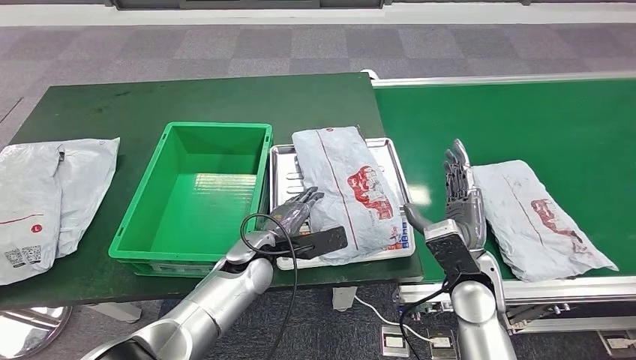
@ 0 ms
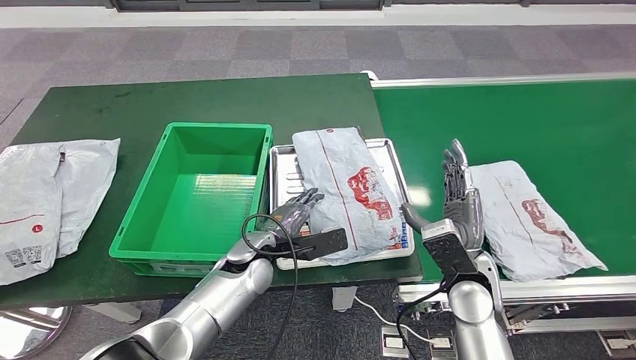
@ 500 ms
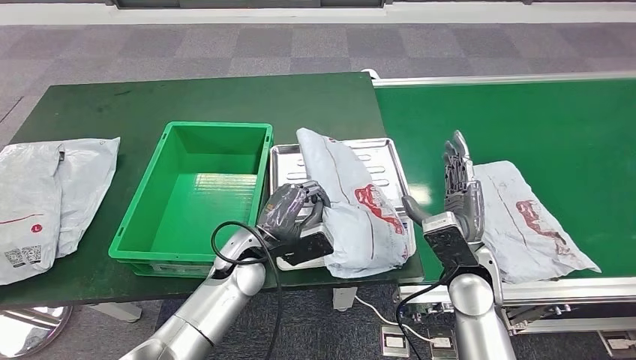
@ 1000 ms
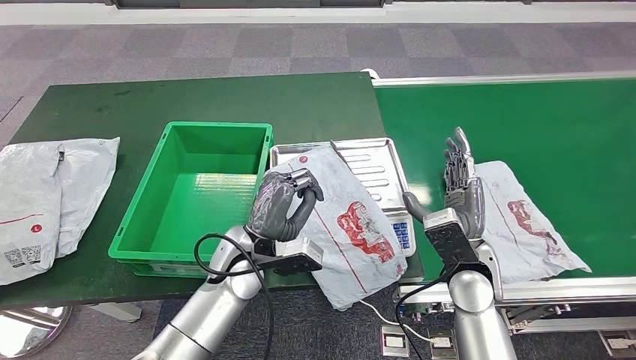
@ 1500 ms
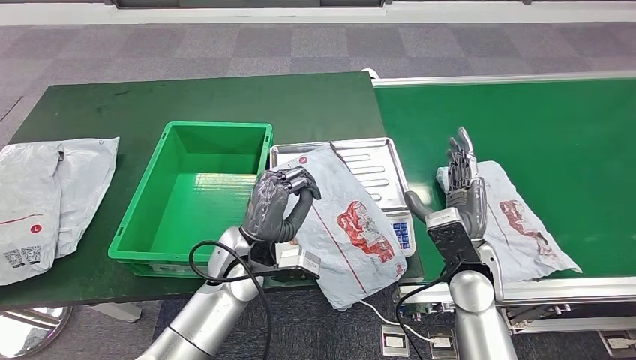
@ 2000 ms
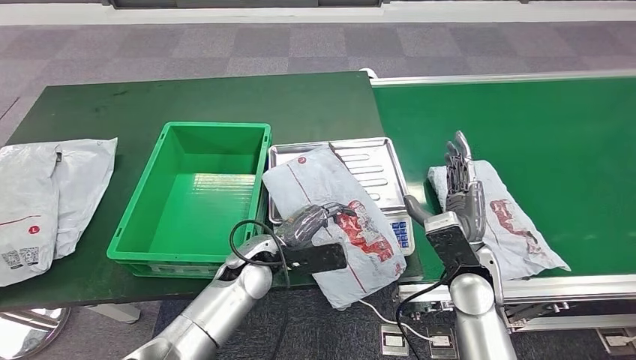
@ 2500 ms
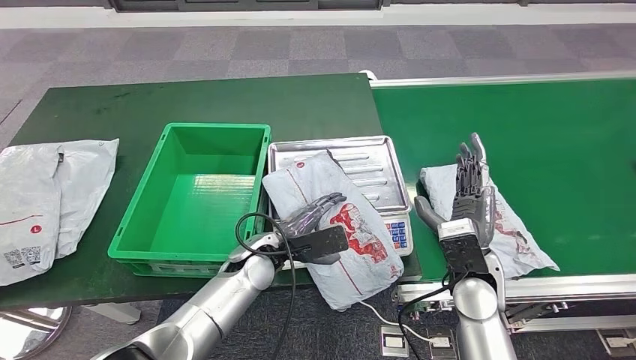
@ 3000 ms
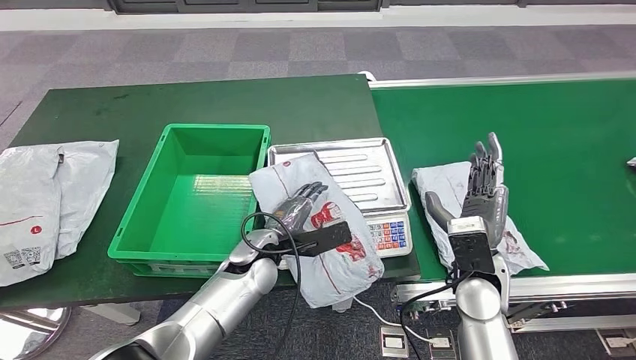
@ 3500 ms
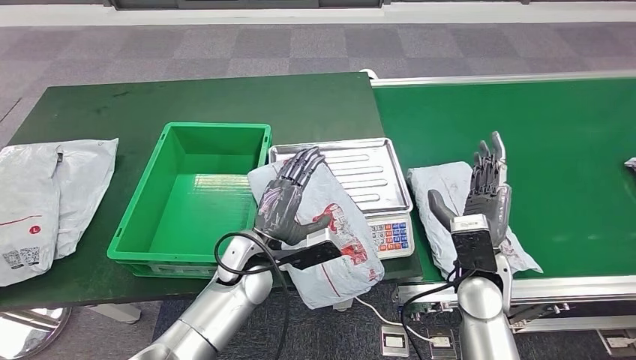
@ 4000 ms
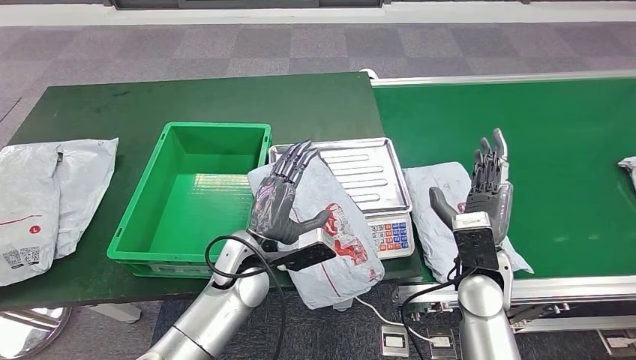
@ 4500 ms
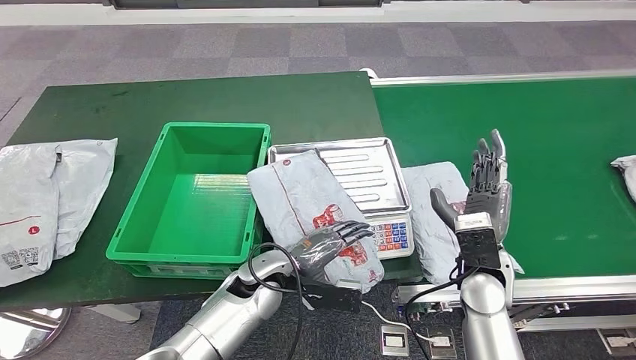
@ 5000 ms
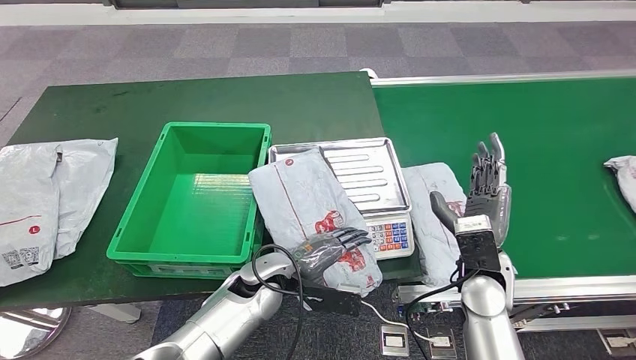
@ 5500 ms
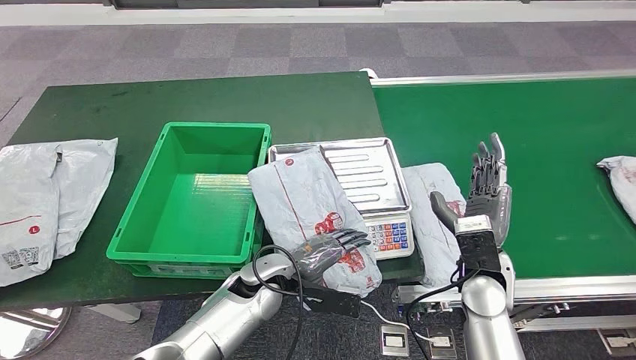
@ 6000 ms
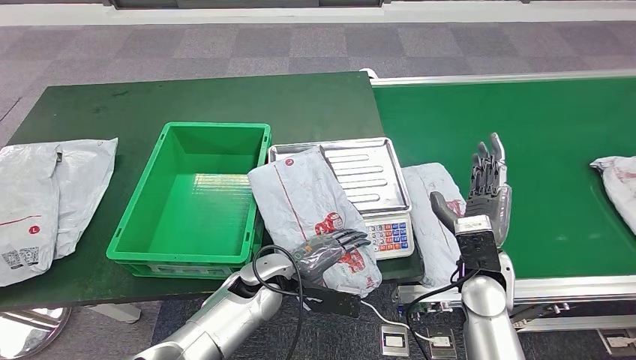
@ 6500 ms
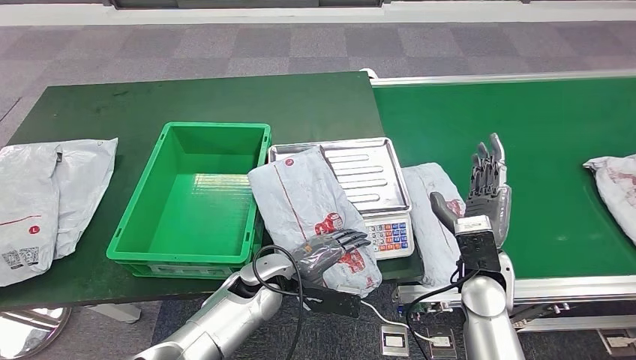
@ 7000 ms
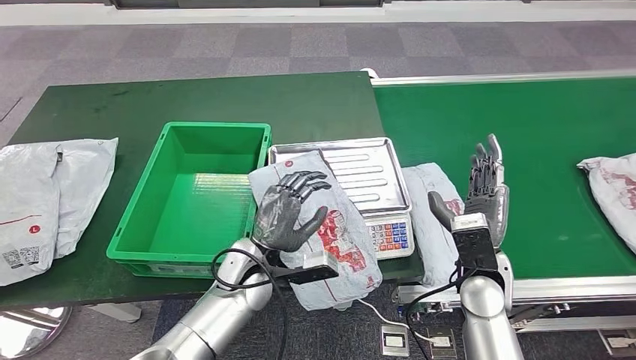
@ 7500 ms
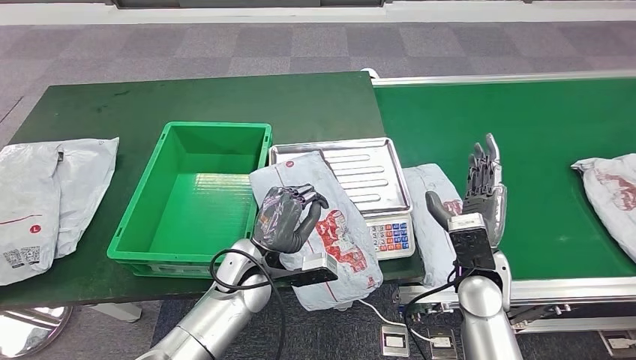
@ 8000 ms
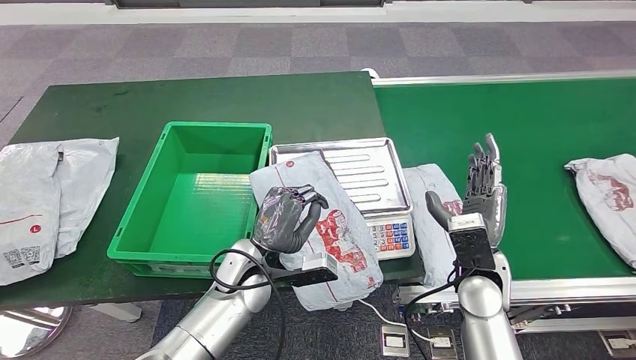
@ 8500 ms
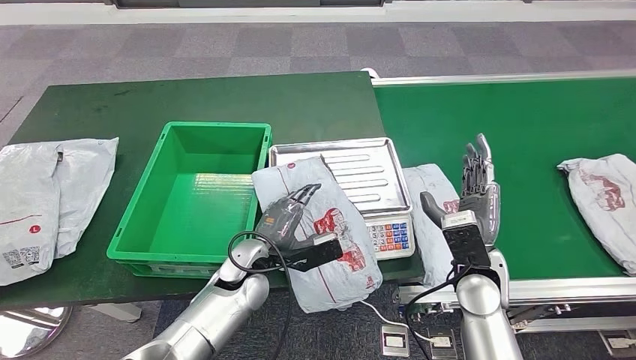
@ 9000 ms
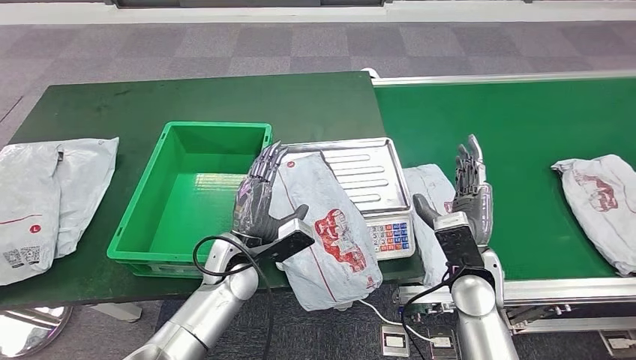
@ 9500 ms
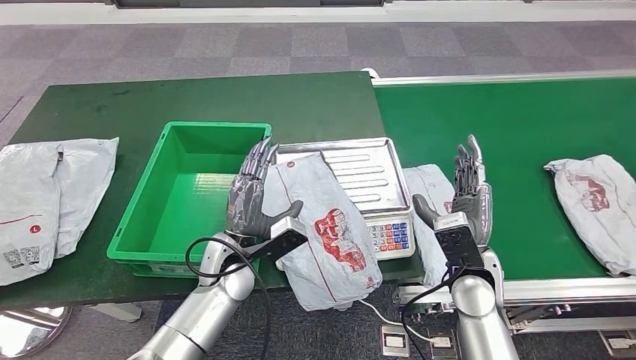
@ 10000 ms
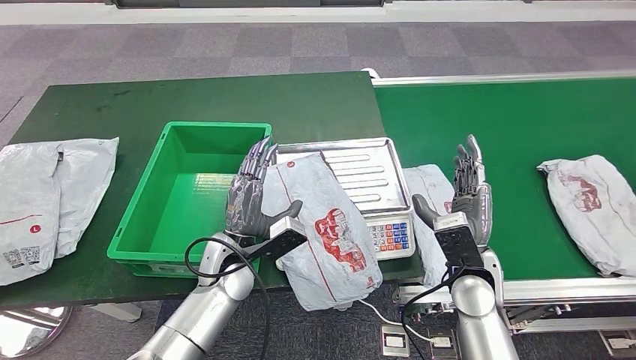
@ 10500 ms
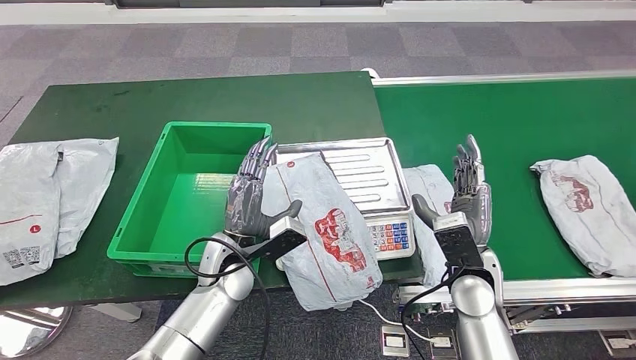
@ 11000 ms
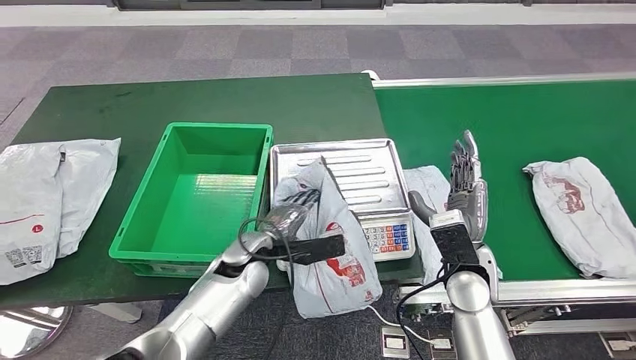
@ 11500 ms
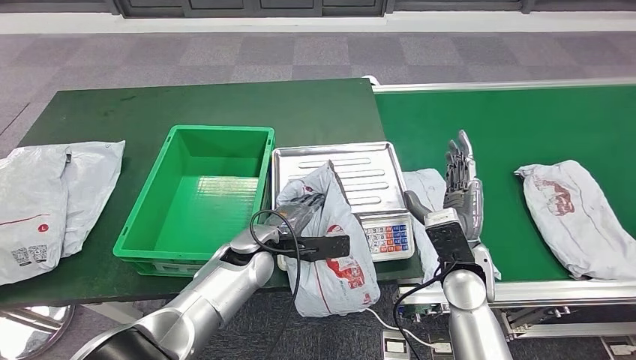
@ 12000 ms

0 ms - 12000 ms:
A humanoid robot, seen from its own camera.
0 ms - 2000 ms: The left hand moves upward, some 5 cm.

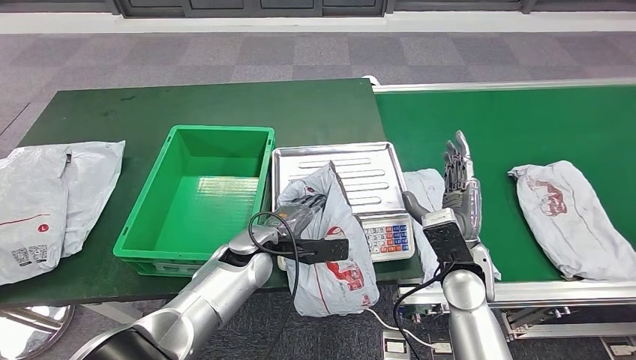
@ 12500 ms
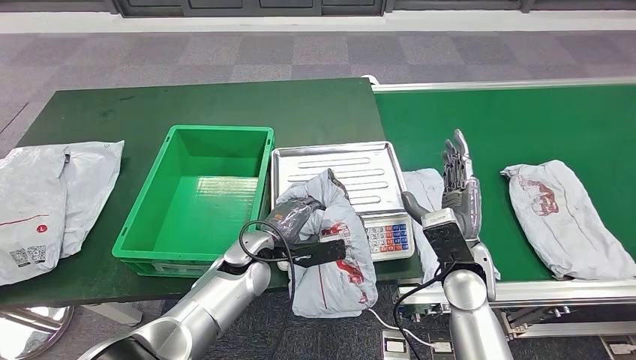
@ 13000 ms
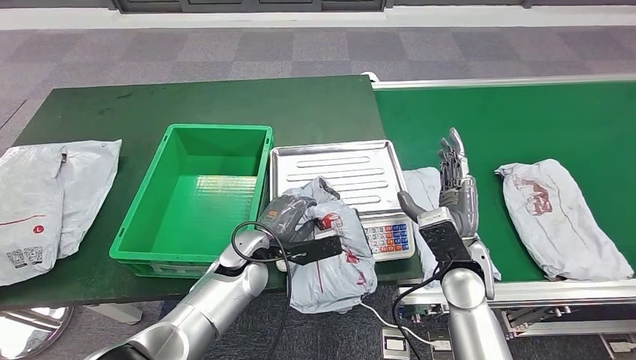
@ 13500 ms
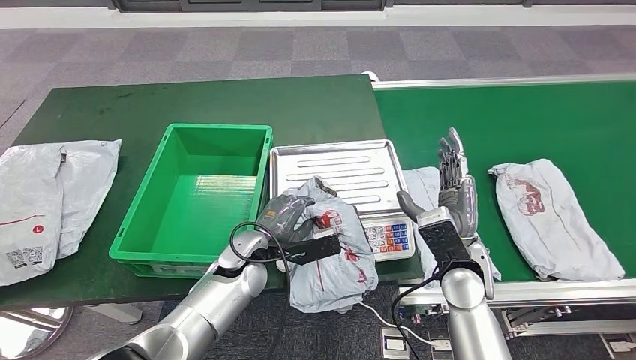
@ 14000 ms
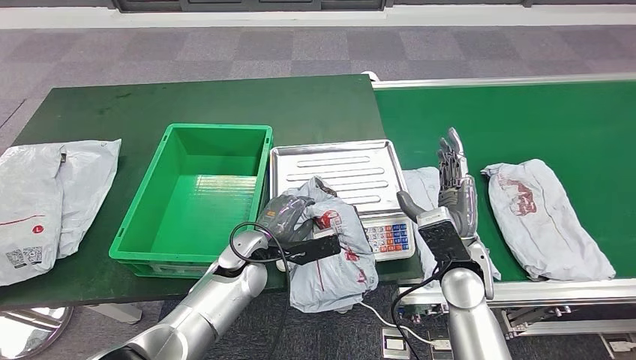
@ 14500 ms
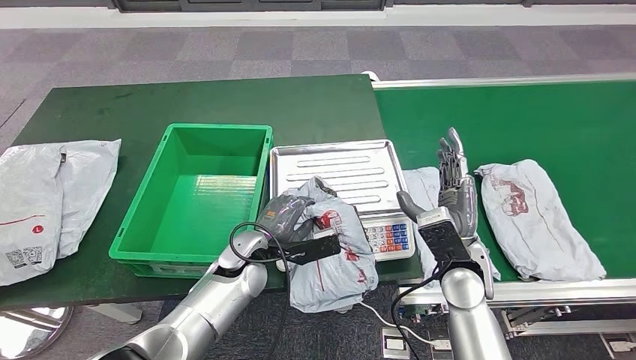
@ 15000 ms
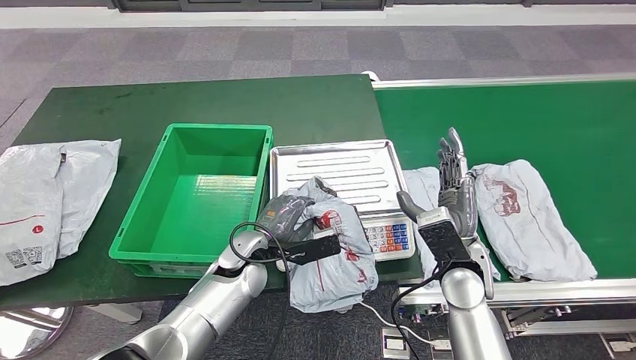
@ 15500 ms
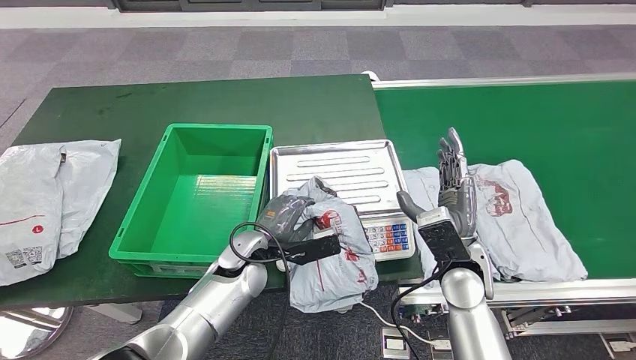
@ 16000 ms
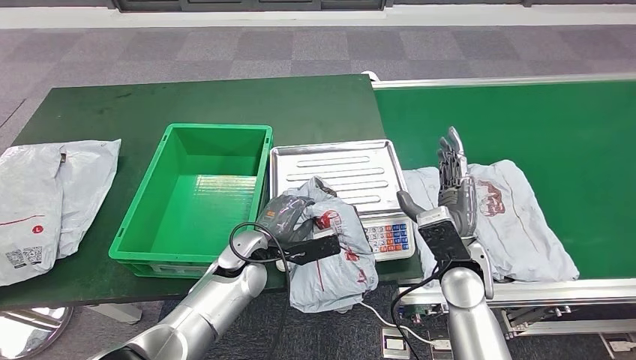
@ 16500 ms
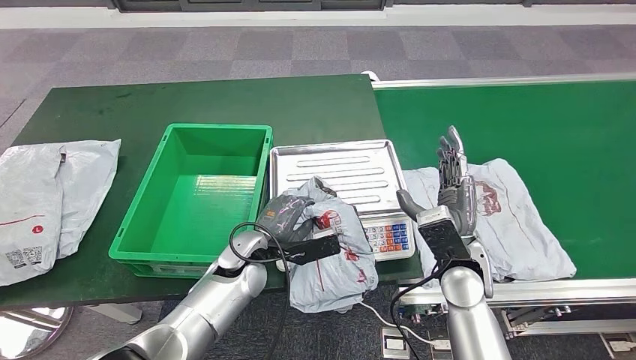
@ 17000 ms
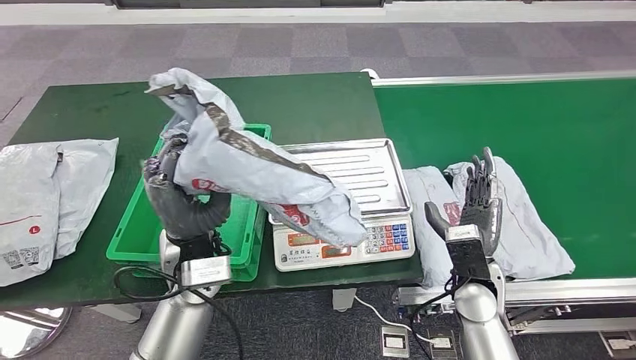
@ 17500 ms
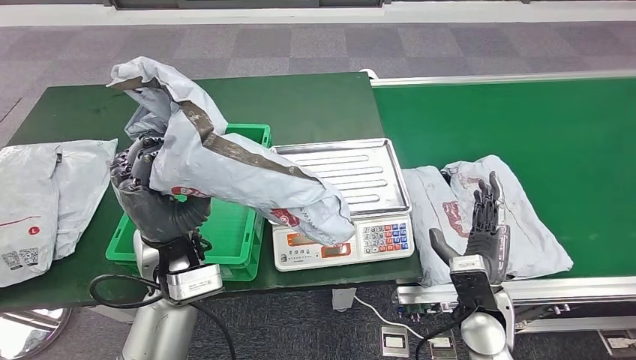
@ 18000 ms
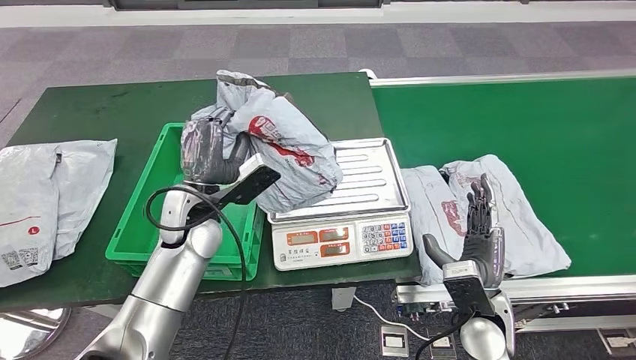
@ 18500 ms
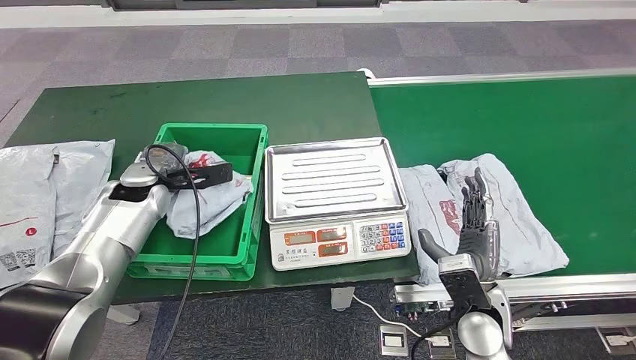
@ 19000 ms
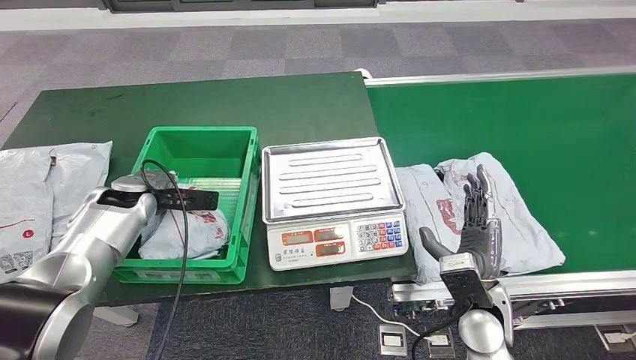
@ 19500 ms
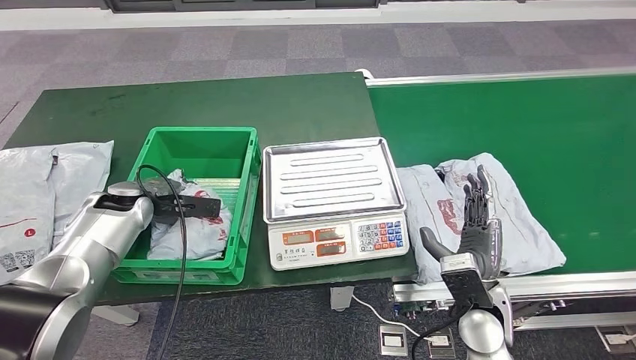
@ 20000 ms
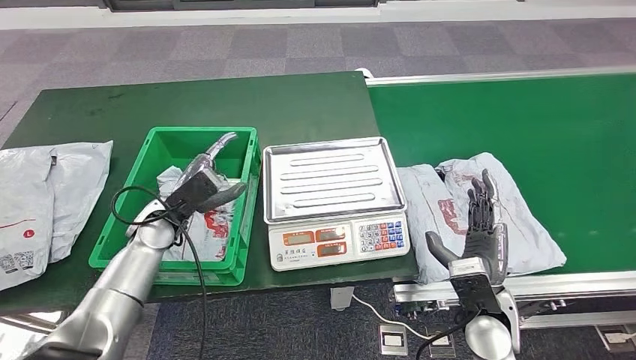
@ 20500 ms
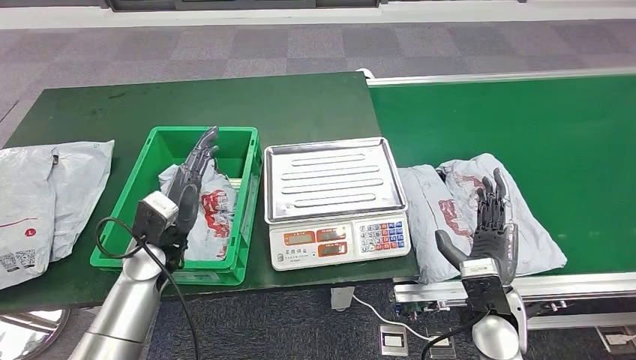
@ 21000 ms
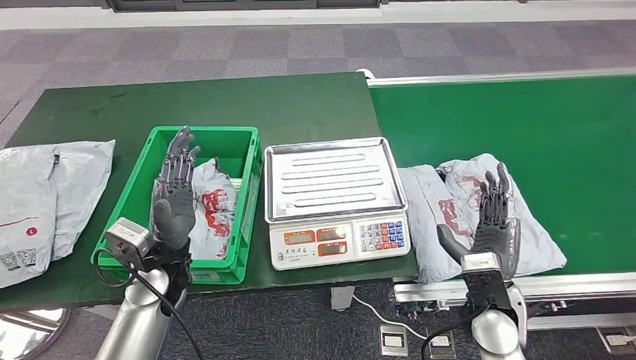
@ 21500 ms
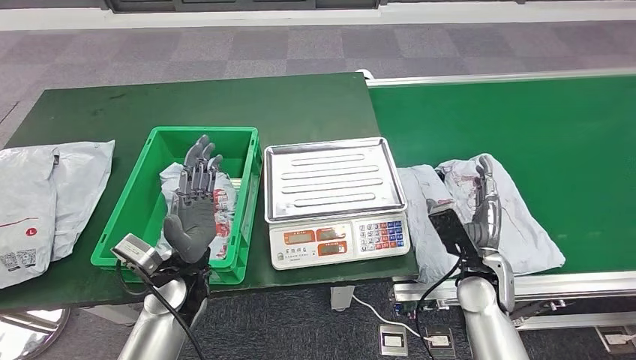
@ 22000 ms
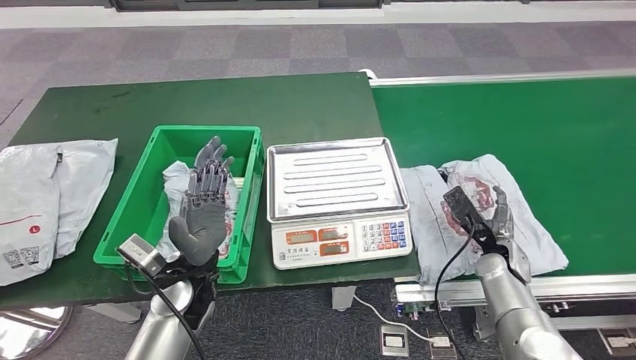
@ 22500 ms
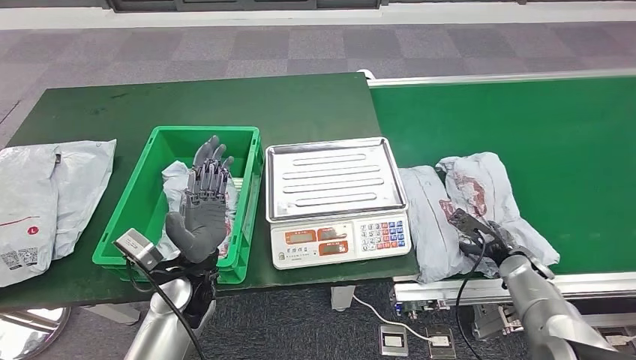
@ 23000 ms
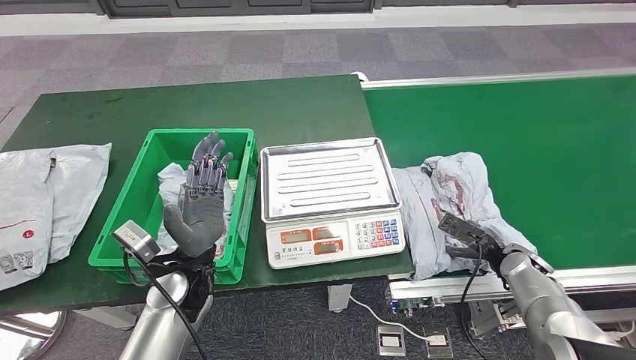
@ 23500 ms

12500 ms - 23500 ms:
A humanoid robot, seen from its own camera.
Step, 15000 ms - 18500 ms: Pick up the parcel from the inbound machine.
Step, 19000 ms - 21000 ms: Put the parcel inside the courier box.
14500 ms - 16000 ms: Both hands stay put.
20000 ms - 21500 ms: The left hand shifts some 15 cm backward and to the right.
